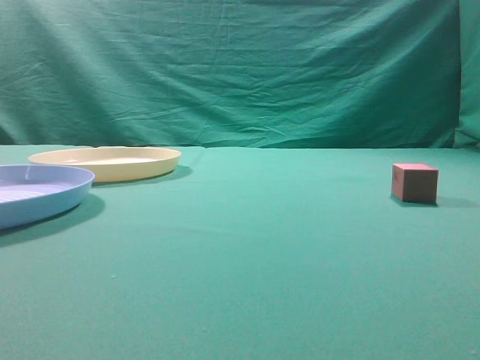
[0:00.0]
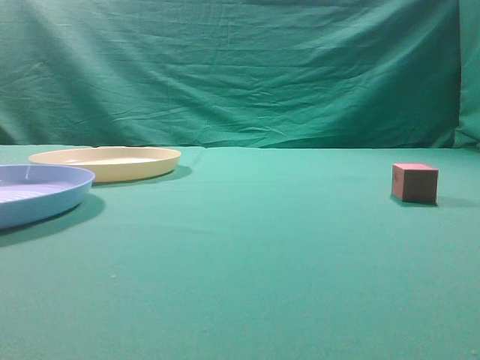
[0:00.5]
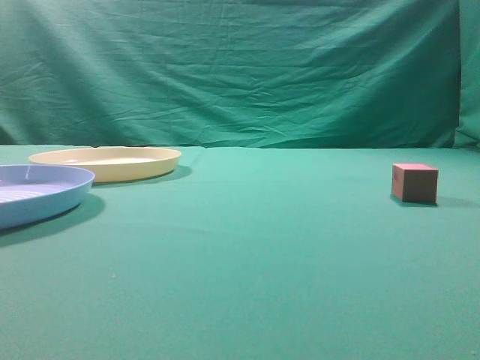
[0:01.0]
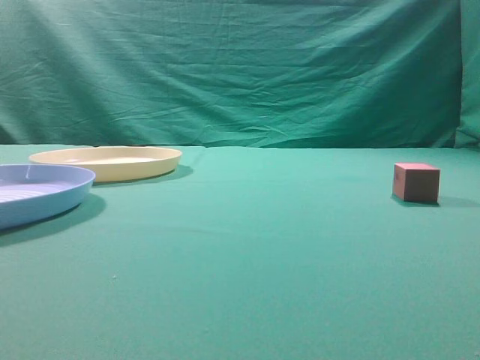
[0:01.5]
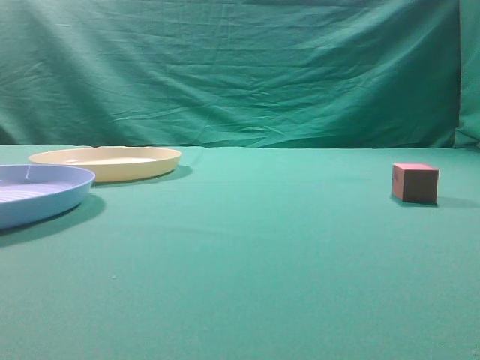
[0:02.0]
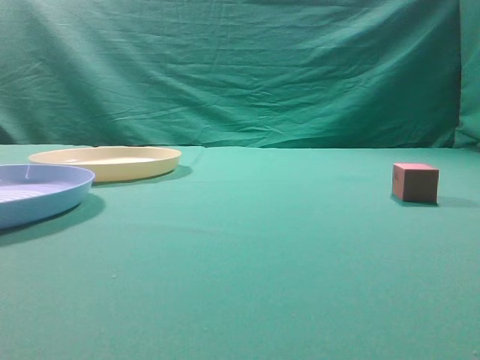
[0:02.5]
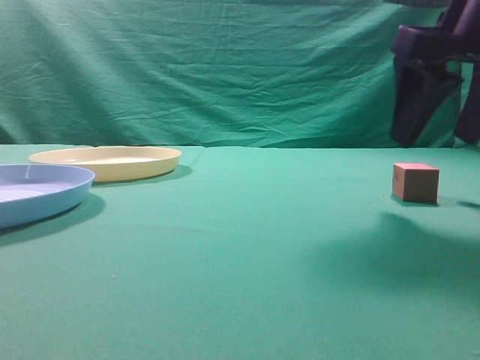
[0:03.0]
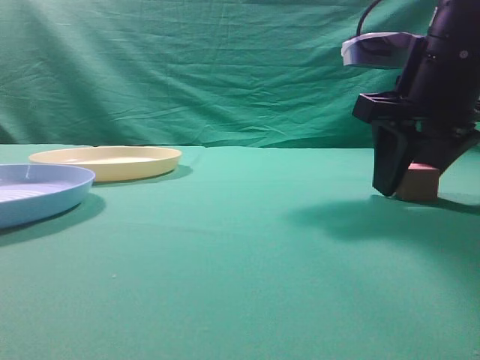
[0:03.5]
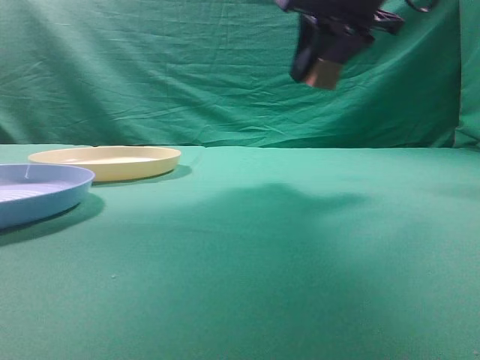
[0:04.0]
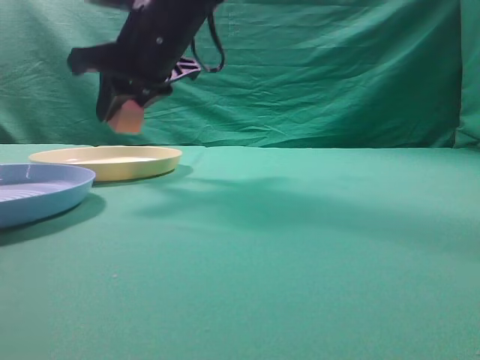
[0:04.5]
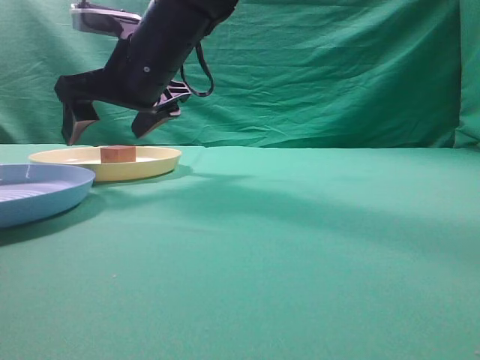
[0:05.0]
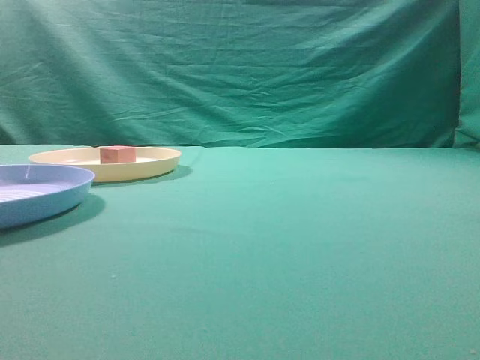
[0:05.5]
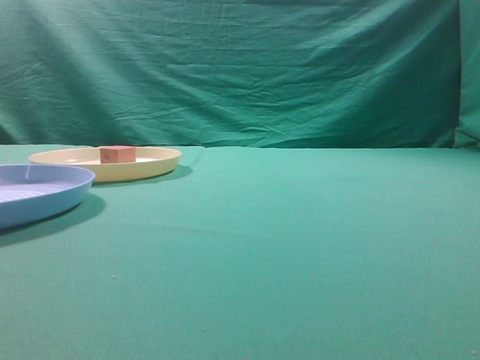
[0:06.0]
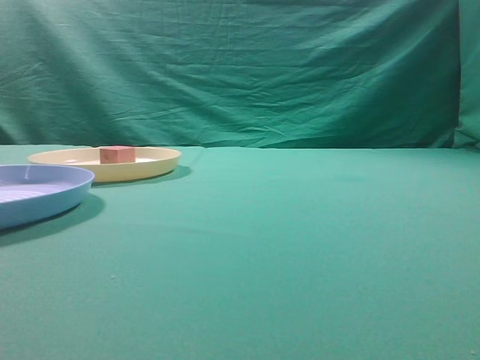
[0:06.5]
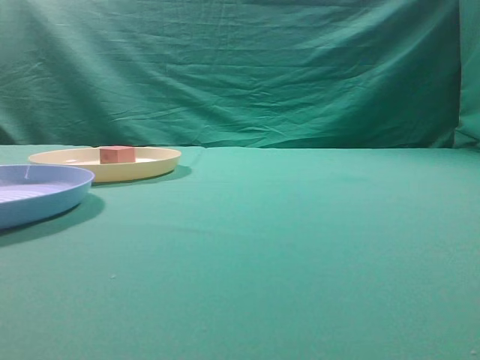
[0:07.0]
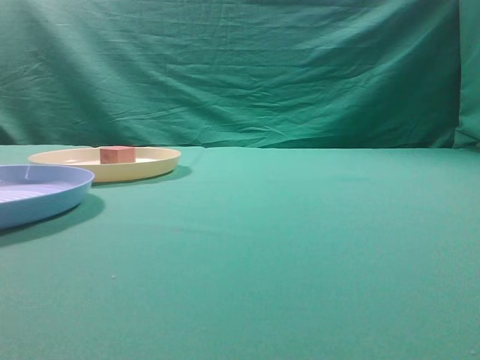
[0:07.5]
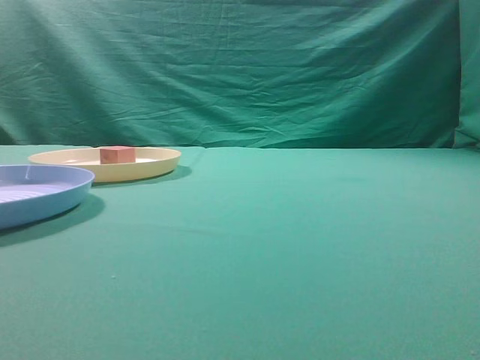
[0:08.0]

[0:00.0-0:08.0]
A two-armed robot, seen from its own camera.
Task of the whole recording: pick up the cube block from the table and put it on the plate.
Step, 0:00.0 to 0:03.5: Grasp the small cube on the table.
Step, 0:04.0 to 0:05.0: Place it into the yellow plate.
0:02.0 to 0:04.0: The right gripper travels to the left and forward by some 35 cm, and opens.
0:04.0 to 0:06.0: The right gripper goes approximately 35 cm backward, upward and to the right, and closes its fingers.
